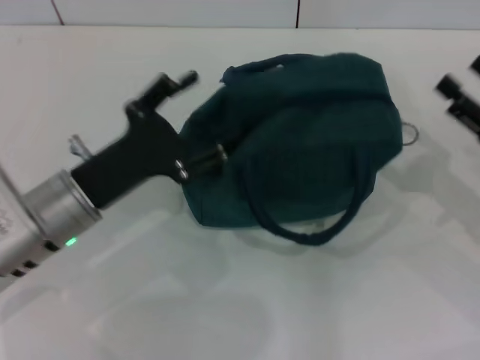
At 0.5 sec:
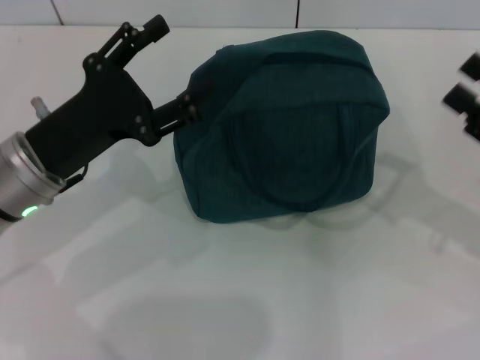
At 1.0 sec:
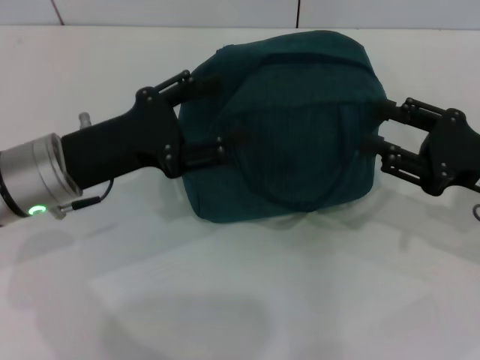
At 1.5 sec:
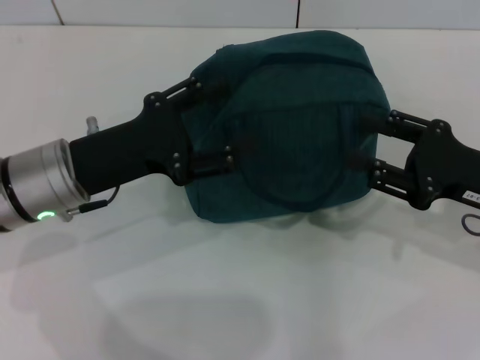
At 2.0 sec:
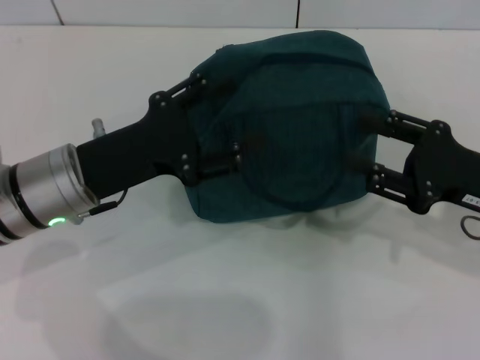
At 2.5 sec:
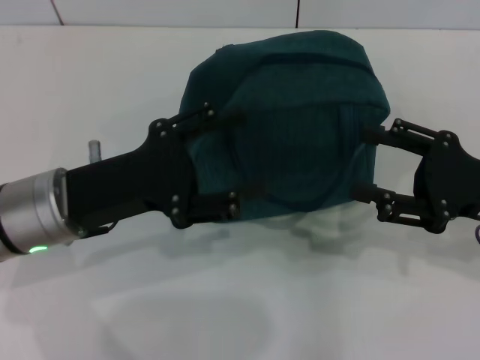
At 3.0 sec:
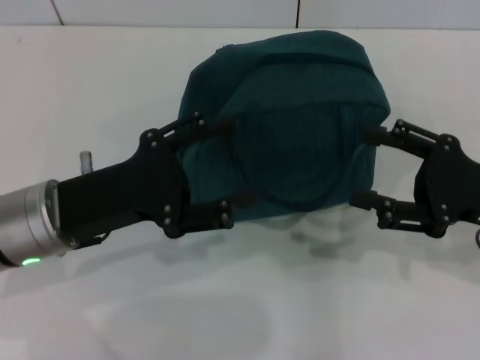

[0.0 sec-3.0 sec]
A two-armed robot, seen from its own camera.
0.0 sec to 1.5 sec: The right gripper changes place by approximately 5 cm.
1.5 sec to 3.0 sec: The grippers make only small movements.
